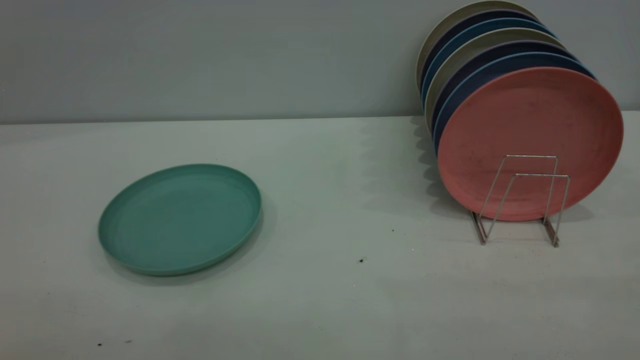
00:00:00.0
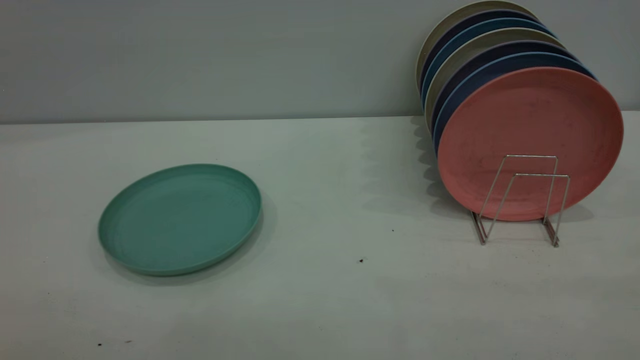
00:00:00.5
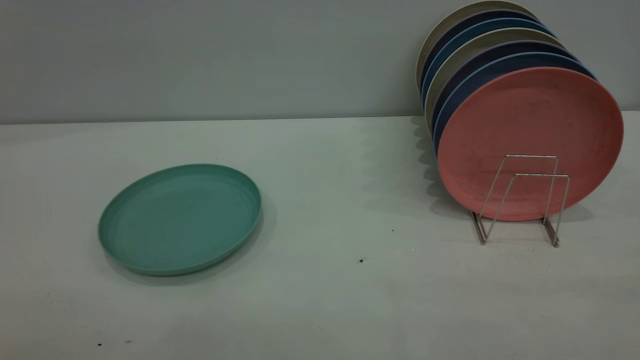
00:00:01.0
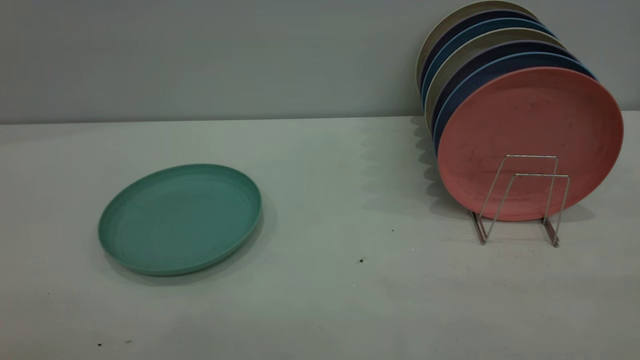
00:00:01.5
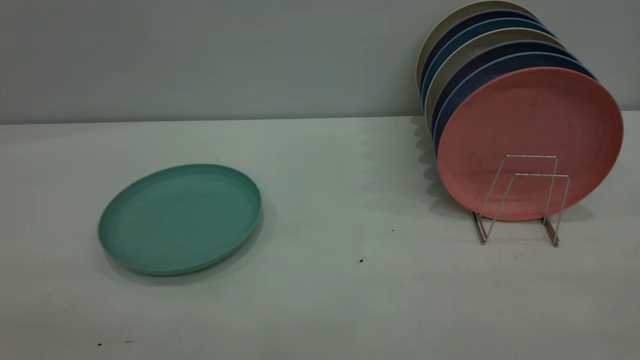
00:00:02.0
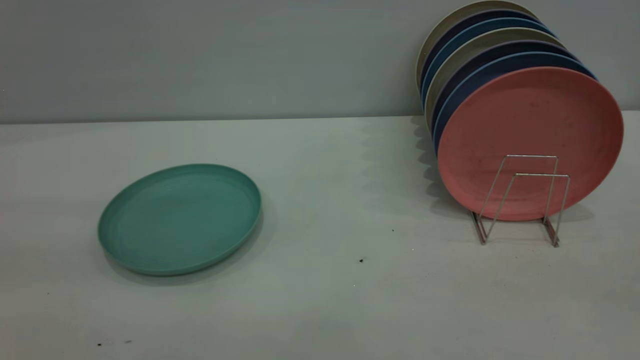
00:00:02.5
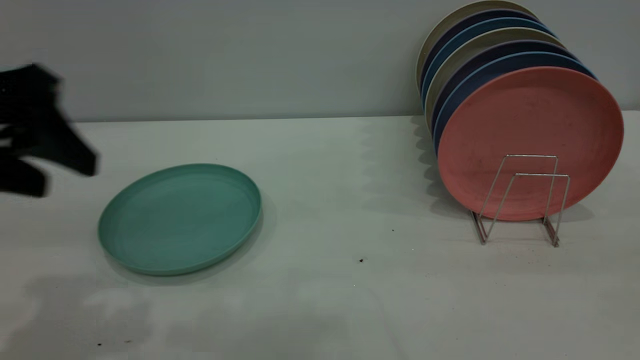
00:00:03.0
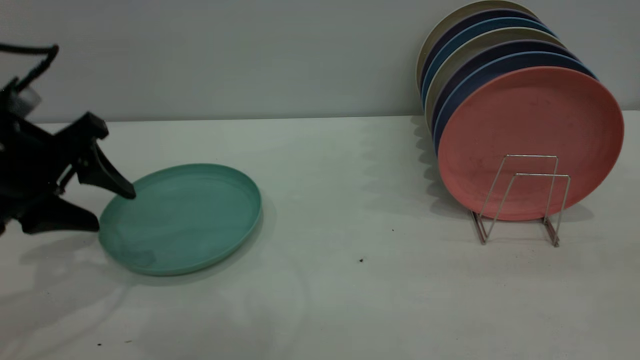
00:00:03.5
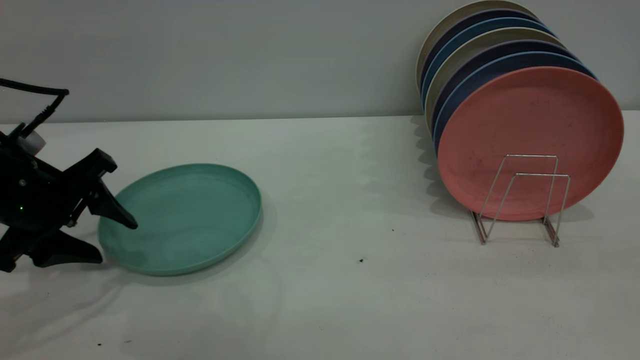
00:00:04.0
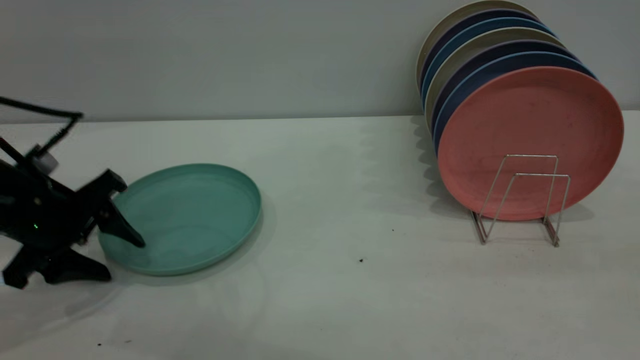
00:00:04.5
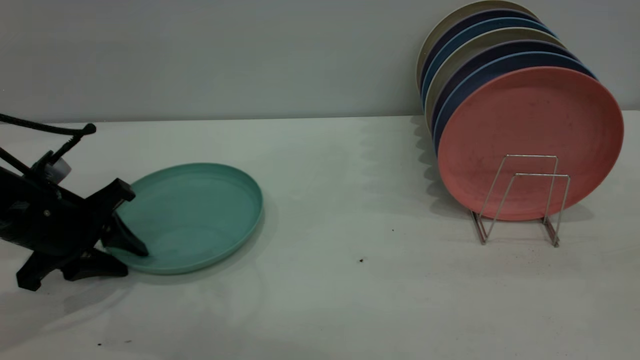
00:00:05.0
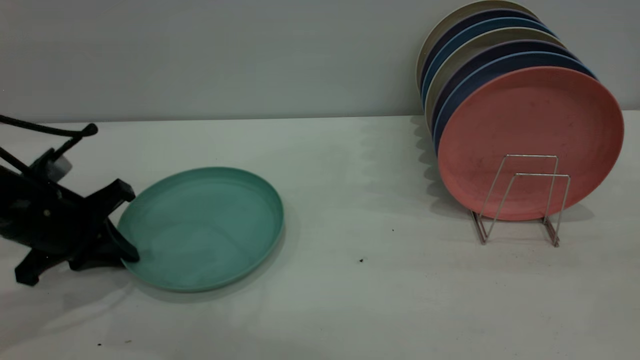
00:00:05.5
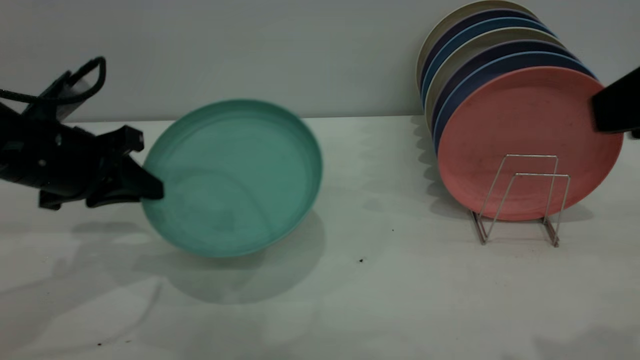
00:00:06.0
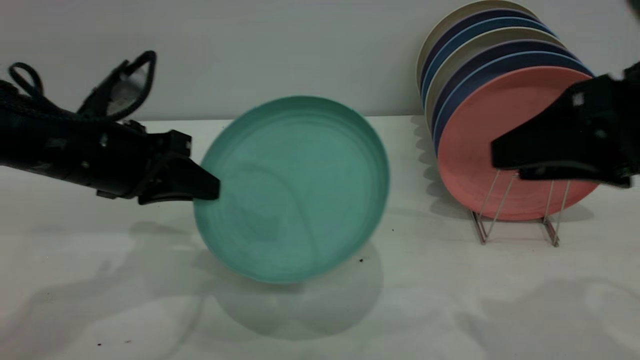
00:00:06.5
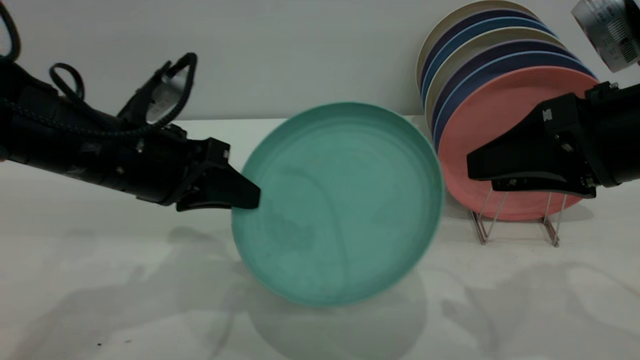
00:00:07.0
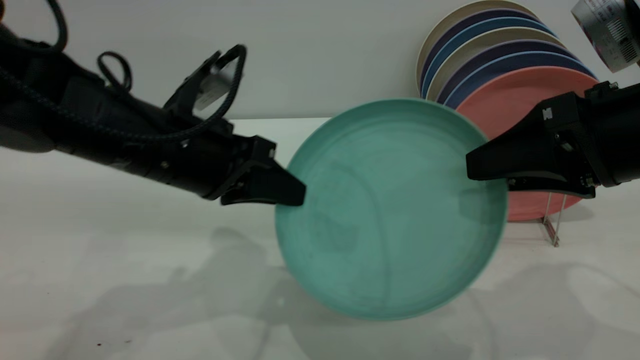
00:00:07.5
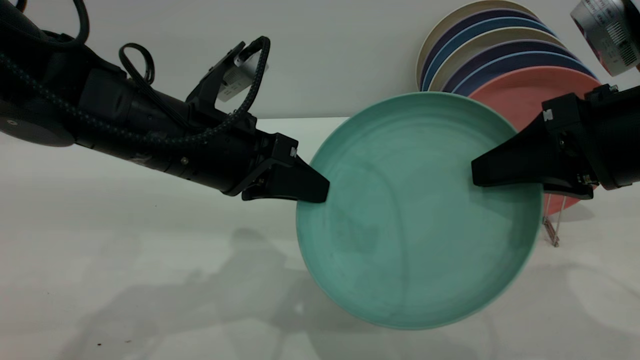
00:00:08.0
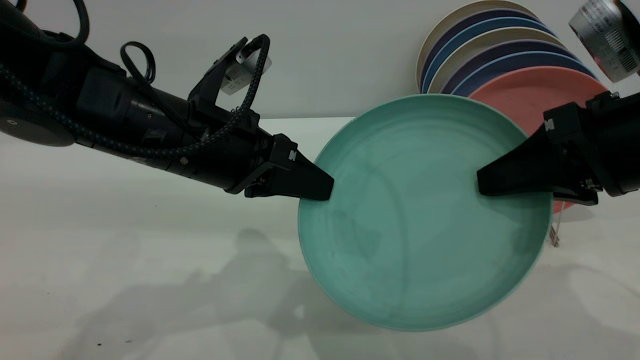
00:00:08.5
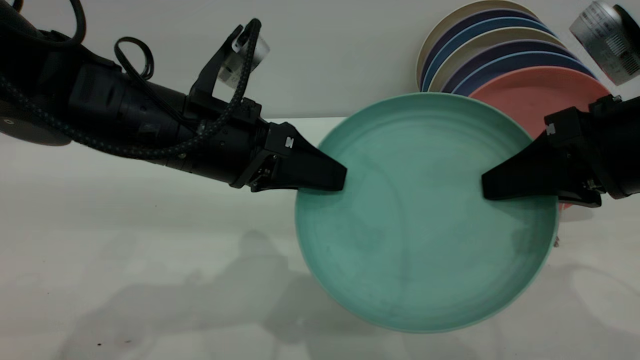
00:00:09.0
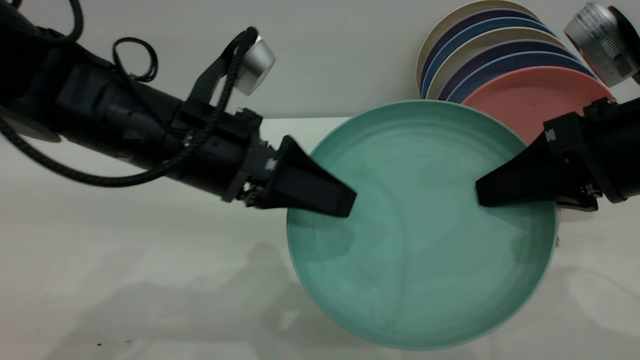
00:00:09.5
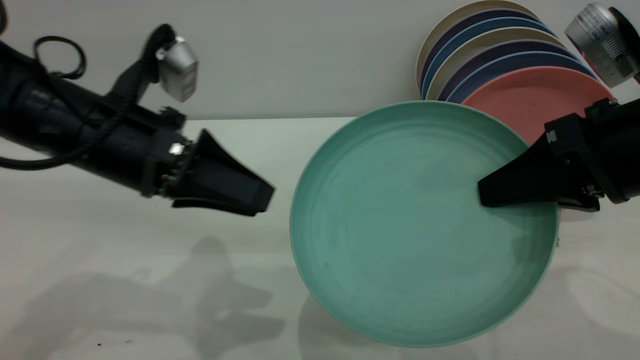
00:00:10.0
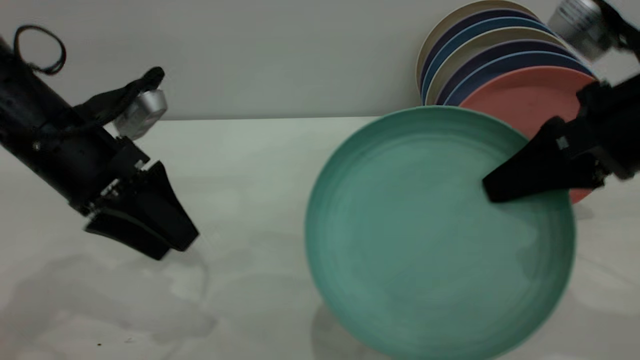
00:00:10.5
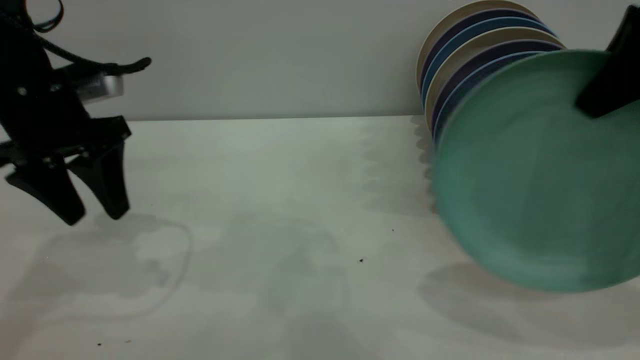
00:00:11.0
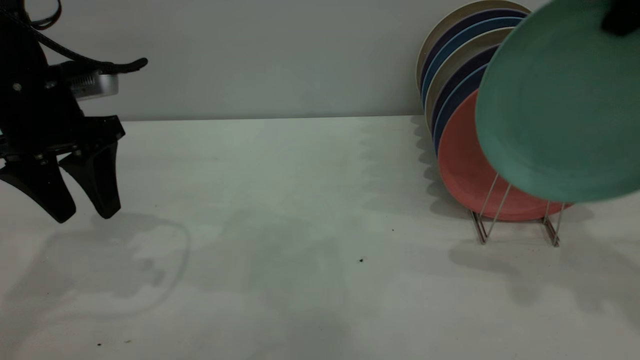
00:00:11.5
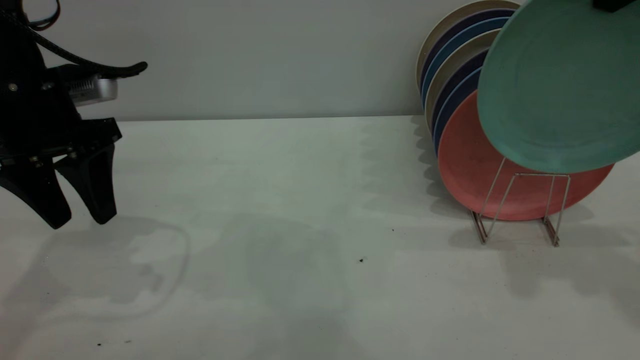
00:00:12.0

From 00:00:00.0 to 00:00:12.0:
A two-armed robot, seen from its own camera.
Task of the whole recording: the left gripper grasp the green plate, the left gripper pass the green plate to the right gripper, and the right gripper place the green plate on the plate rack.
Step, from 00:00:00.0 to 00:00:05.5: Pick up the plate with the left gripper.
Step, from 00:00:06.0 to 00:00:09.5: Pass the plate from the left gripper to the right gripper.
From 00:00:02.0 to 00:00:04.0: The left gripper heads forward and downward, covering some 40 cm.
From 00:00:04.0 to 00:00:06.0: The right gripper is displaced forward by roughly 5 cm, while the left gripper closes its fingers.
From 00:00:06.0 to 00:00:08.0: The left gripper goes about 15 cm to the right; the right gripper moves downward and forward, some 10 cm, and closes.
From 00:00:08.0 to 00:00:10.0: The left gripper heads to the left, covering some 5 cm, and opens up.
From 00:00:10.0 to 00:00:12.0: The left gripper goes approximately 10 cm to the left and forward. The right gripper heads upward and forward, covering approximately 20 cm.

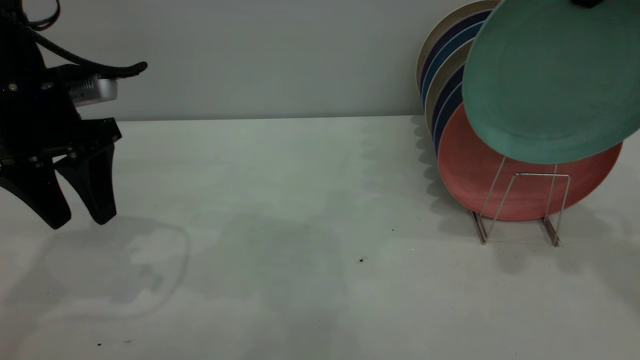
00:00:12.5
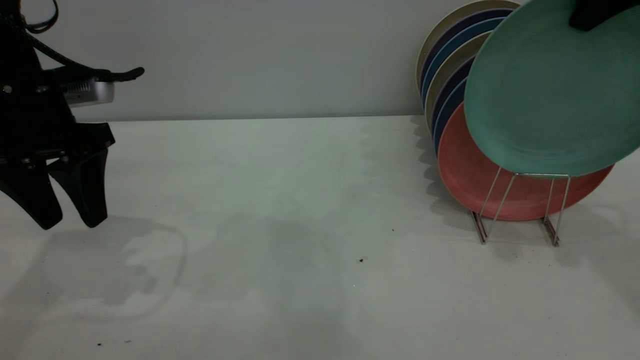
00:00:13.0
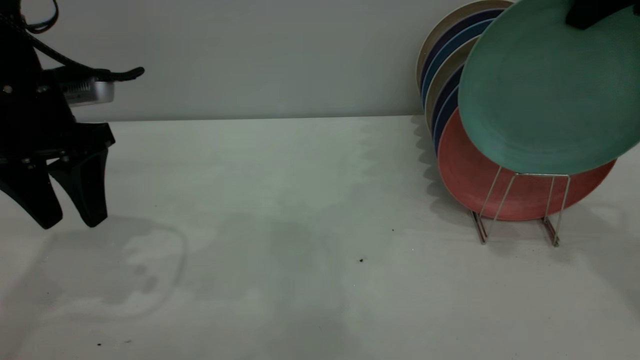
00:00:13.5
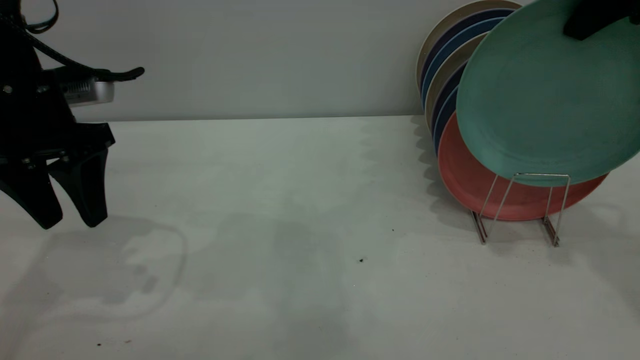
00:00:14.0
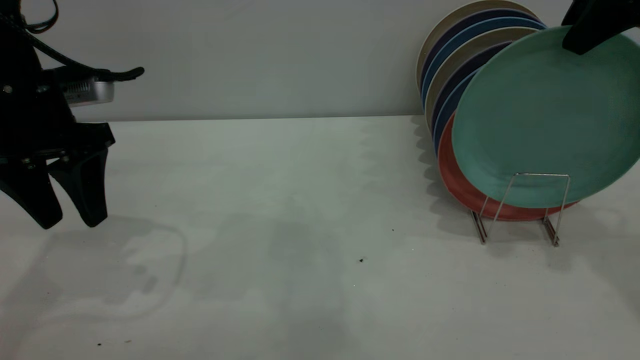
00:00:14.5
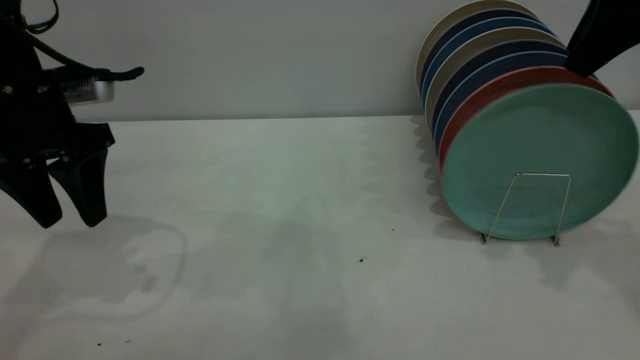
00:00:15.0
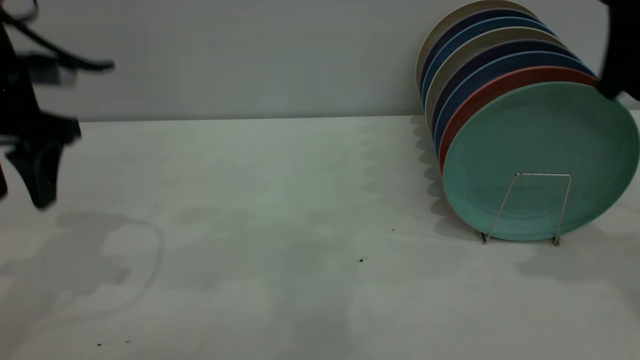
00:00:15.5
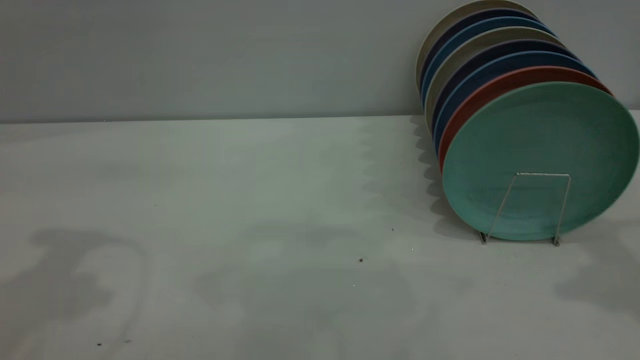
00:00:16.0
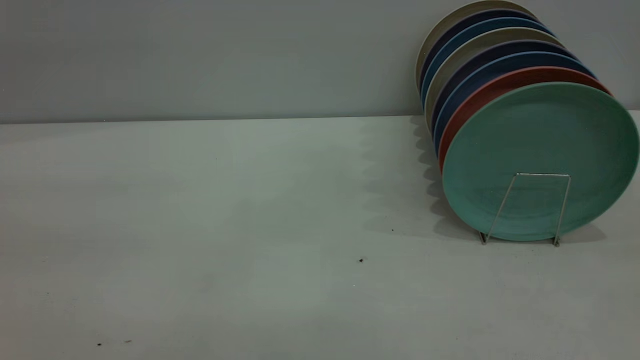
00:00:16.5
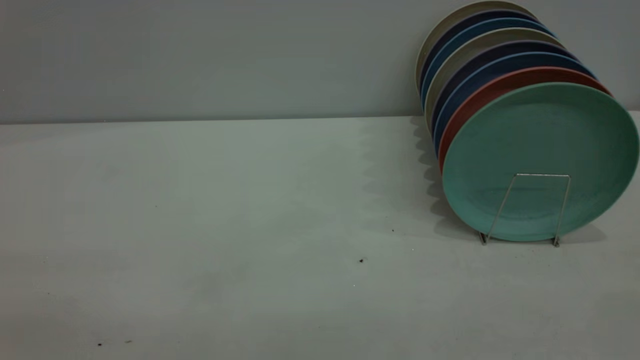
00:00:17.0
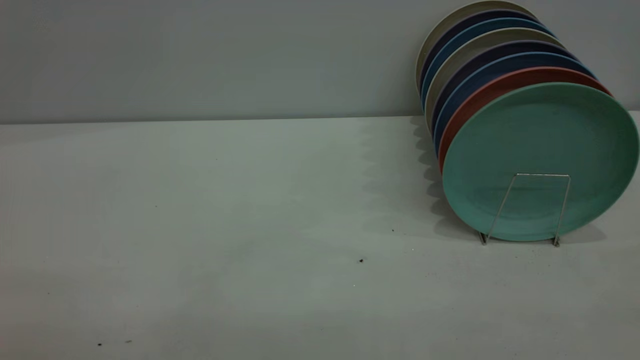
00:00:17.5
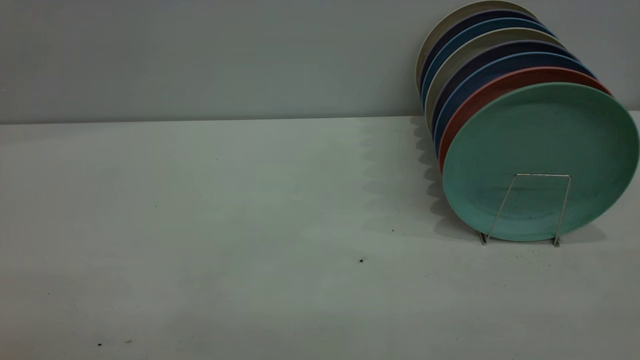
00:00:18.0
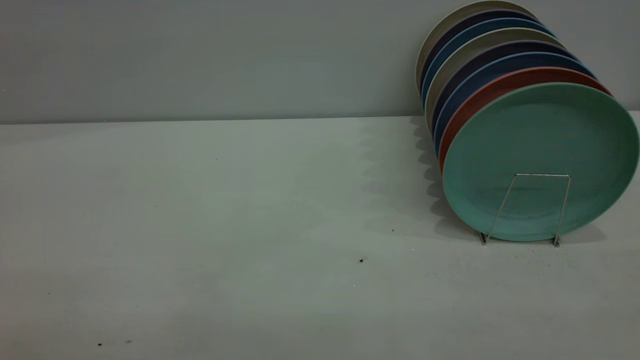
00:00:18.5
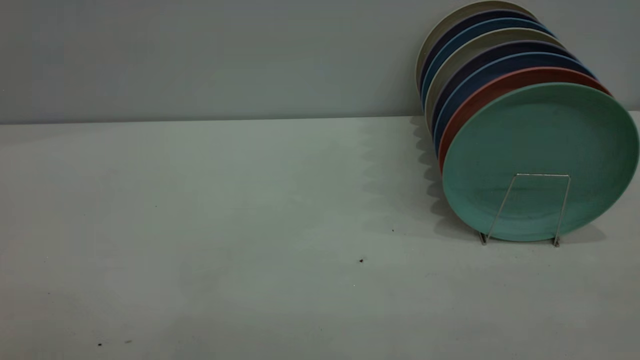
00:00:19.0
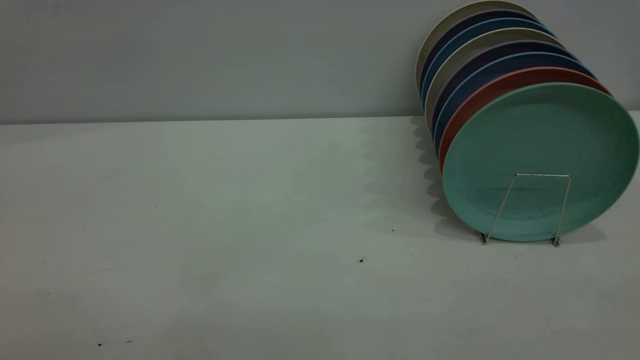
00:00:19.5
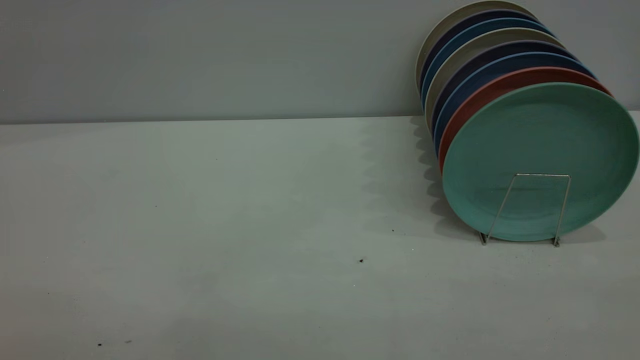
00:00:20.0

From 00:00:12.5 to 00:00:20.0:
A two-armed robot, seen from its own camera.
Task of the whole recording: the left gripper grasp the green plate, the left gripper pass the green plate to the right gripper, and the right gripper place the green plate on the plate rack.
Step, from 00:00:12.5 to 00:00:15.5: Place the plate on the shelf.
From 00:00:12.5 to 00:00:14.5: The right gripper opens up.
From 00:00:14.5 to 00:00:16.5: The right gripper moves backward, approximately 30 cm; the left gripper travels backward and upward by about 35 cm.
